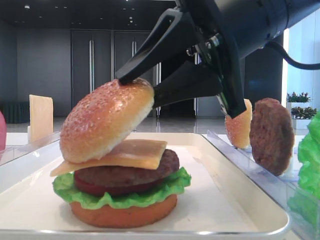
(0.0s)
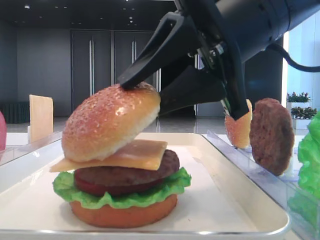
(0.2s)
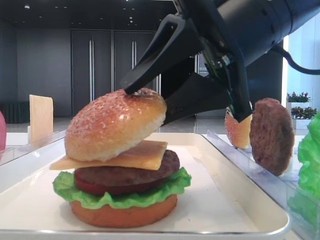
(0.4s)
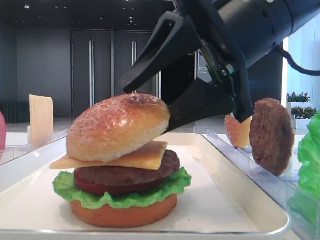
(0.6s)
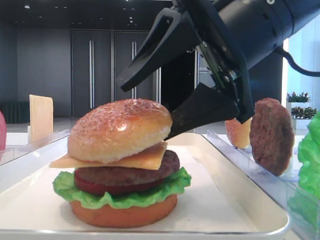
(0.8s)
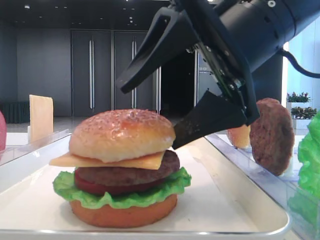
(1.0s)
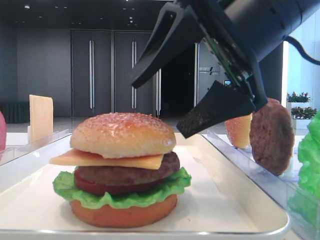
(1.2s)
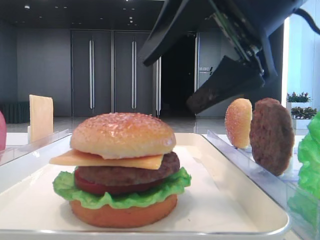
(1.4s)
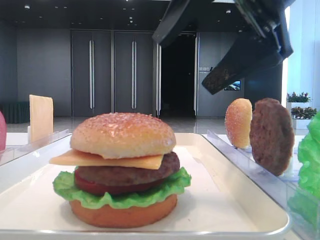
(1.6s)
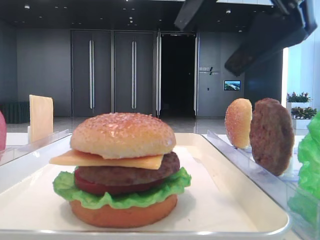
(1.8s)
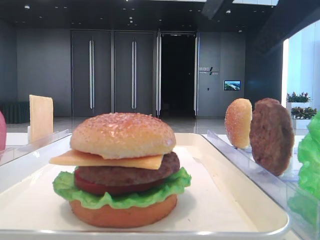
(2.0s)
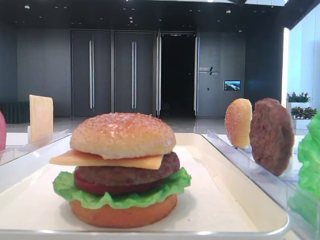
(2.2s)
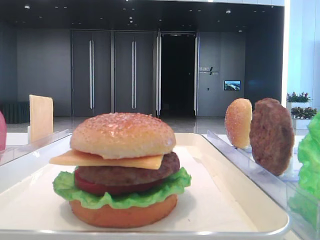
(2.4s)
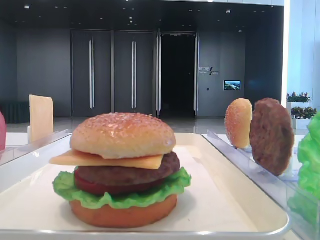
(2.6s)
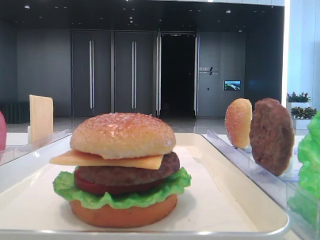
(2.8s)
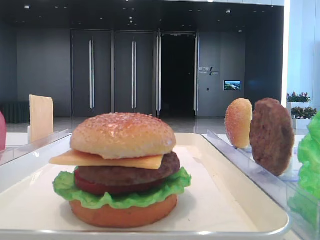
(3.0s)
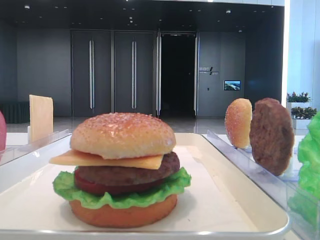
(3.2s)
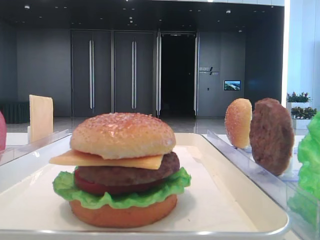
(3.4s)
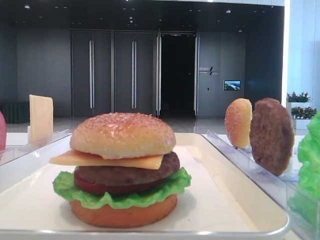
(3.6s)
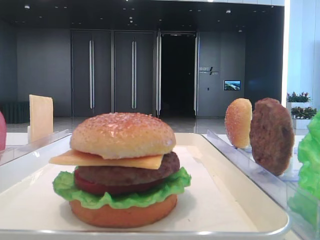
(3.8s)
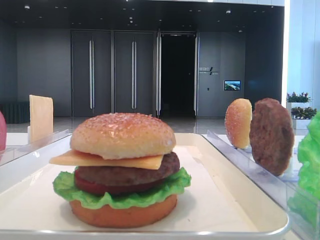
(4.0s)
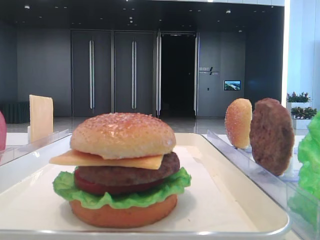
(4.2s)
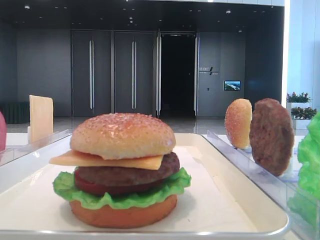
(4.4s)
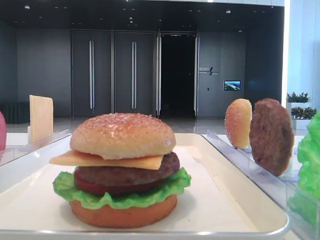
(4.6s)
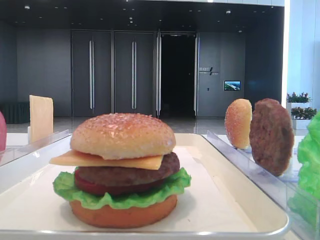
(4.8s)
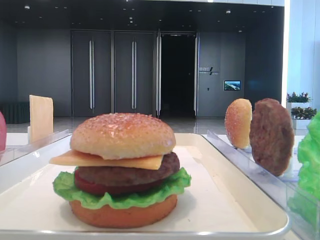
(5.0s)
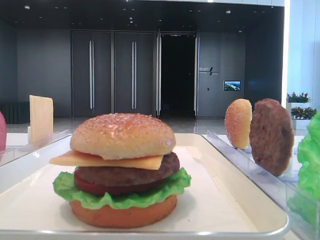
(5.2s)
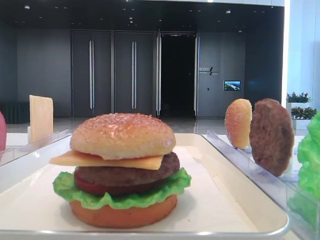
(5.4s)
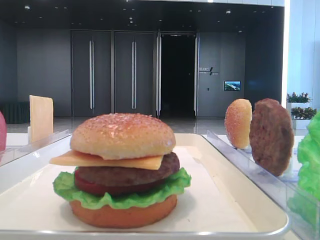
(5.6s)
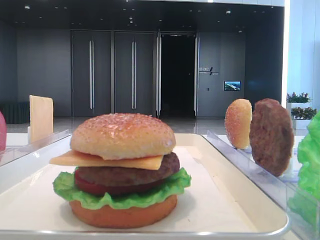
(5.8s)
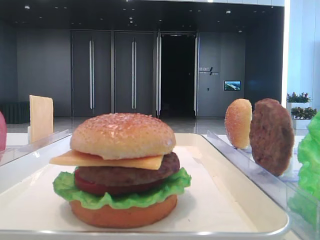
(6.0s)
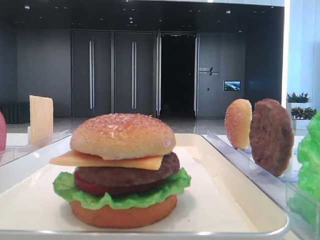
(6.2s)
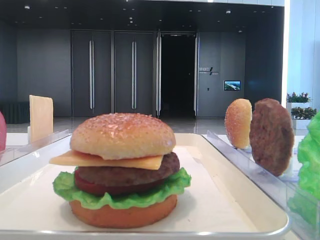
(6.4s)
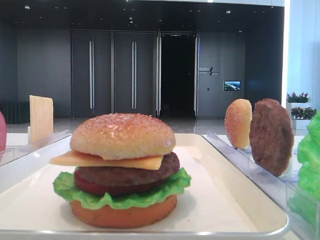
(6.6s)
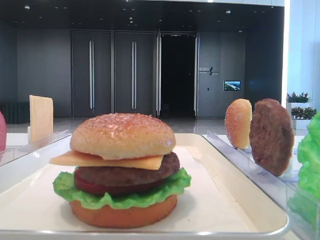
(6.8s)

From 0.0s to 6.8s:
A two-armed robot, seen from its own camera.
From 0.0s to 1.4s: The right gripper opens.
From 1.4s to 2.8s: The right gripper shifts about 20 cm upward and to the right.

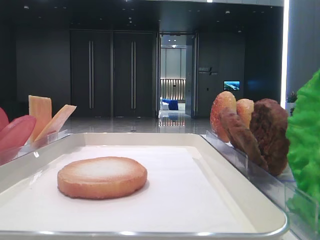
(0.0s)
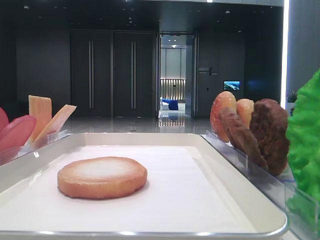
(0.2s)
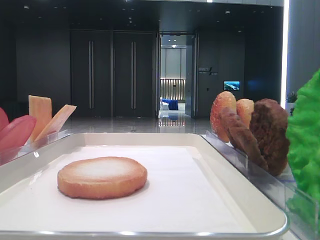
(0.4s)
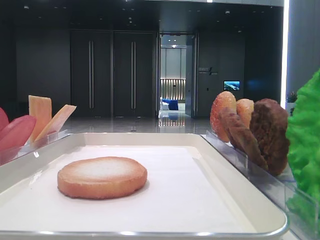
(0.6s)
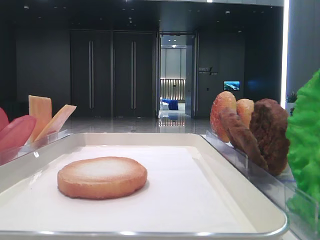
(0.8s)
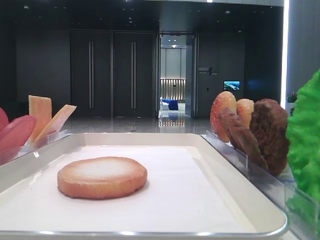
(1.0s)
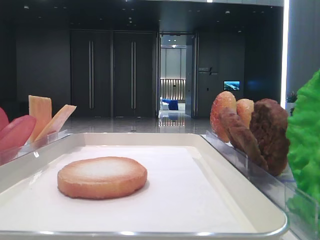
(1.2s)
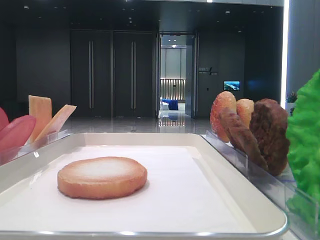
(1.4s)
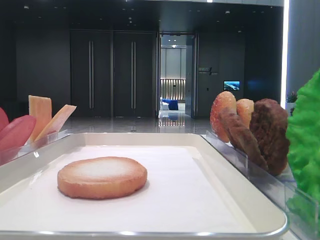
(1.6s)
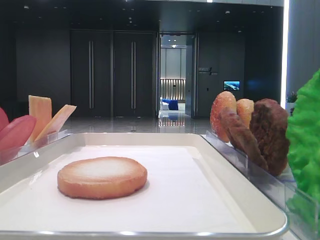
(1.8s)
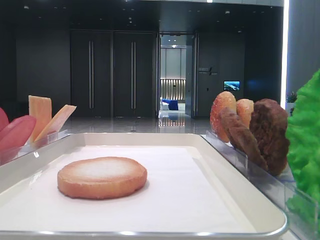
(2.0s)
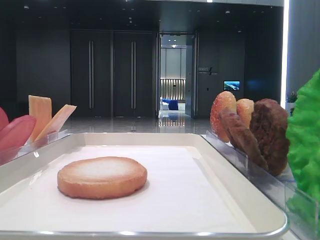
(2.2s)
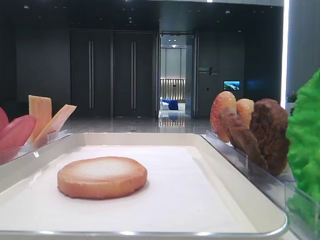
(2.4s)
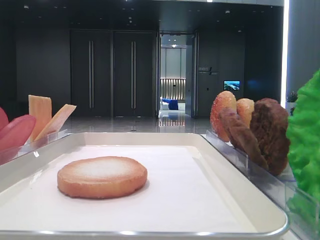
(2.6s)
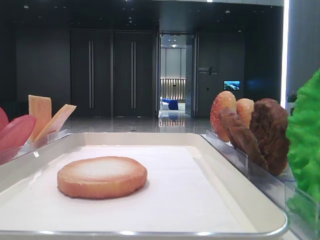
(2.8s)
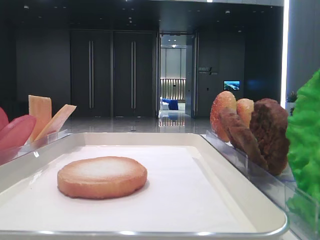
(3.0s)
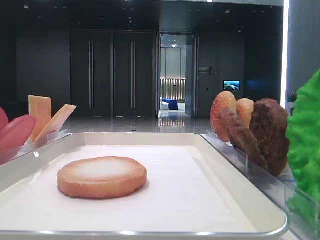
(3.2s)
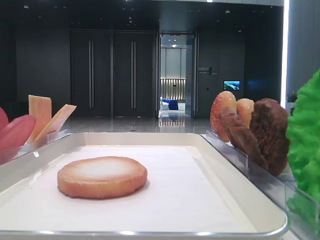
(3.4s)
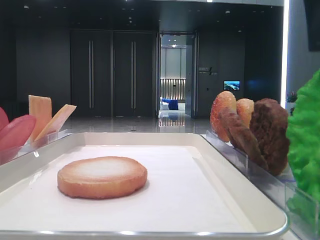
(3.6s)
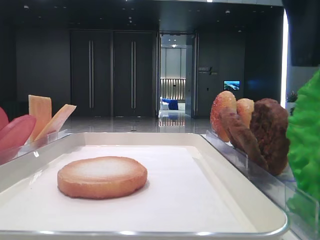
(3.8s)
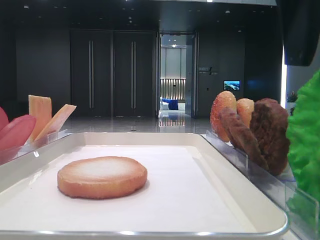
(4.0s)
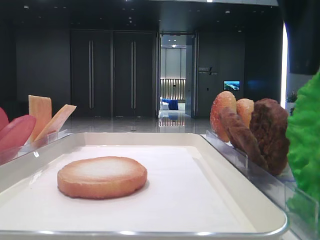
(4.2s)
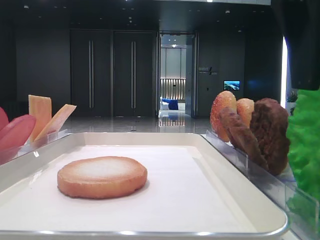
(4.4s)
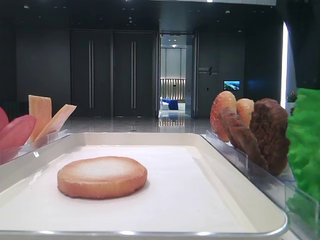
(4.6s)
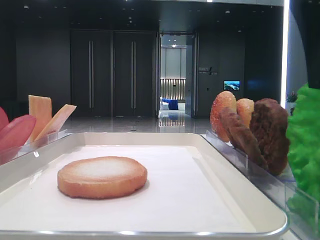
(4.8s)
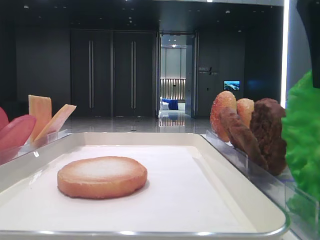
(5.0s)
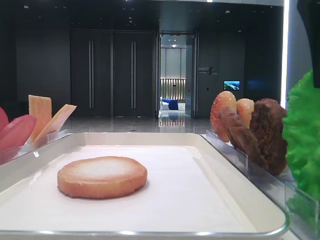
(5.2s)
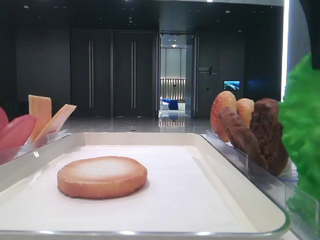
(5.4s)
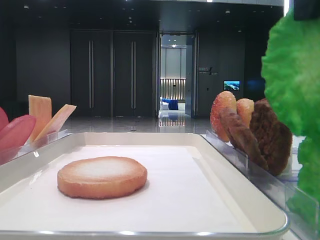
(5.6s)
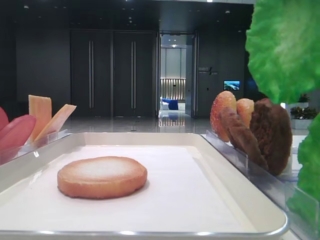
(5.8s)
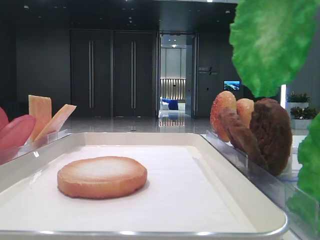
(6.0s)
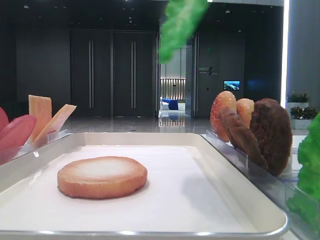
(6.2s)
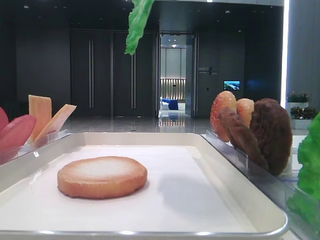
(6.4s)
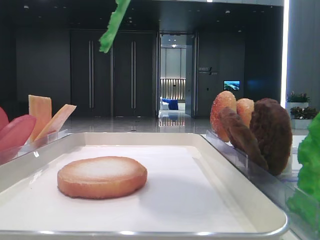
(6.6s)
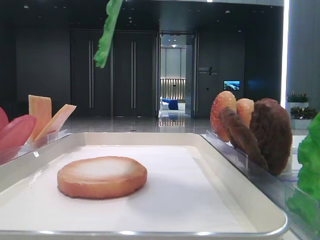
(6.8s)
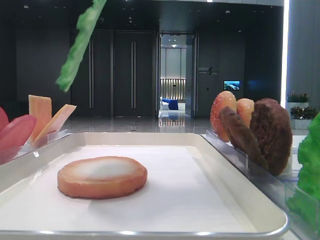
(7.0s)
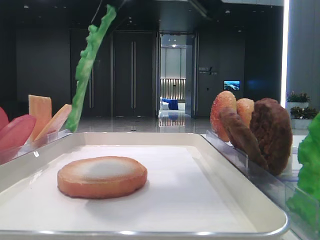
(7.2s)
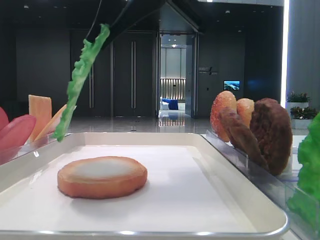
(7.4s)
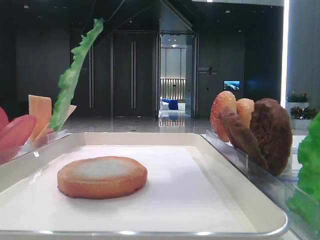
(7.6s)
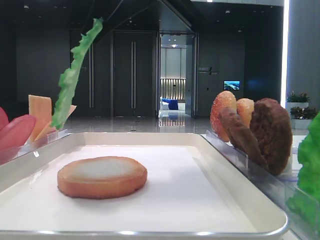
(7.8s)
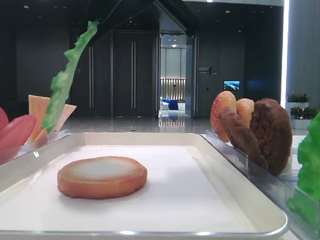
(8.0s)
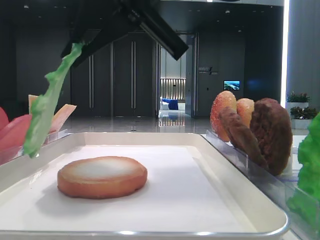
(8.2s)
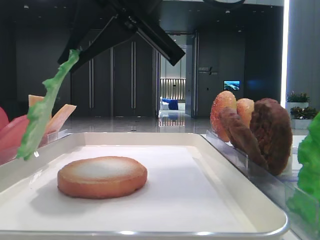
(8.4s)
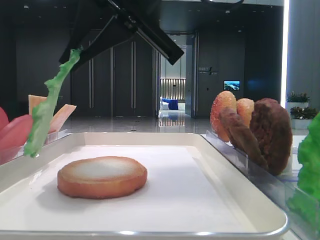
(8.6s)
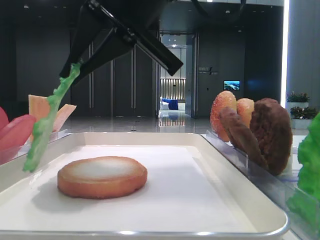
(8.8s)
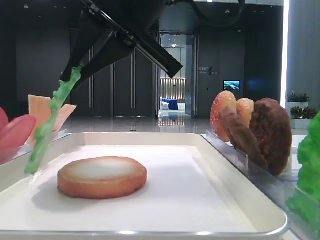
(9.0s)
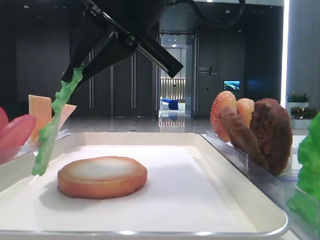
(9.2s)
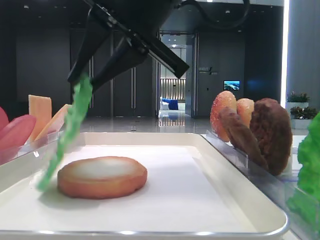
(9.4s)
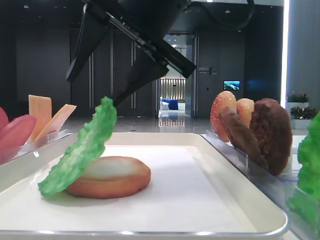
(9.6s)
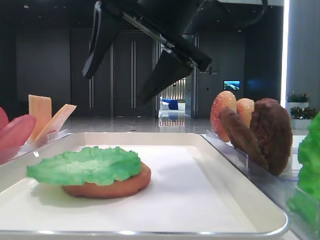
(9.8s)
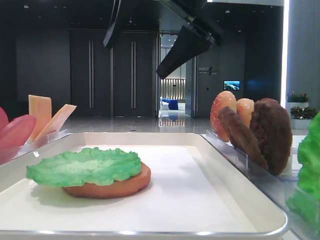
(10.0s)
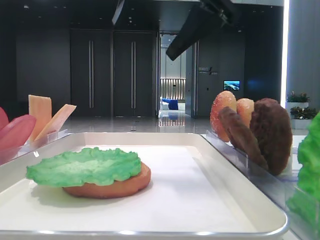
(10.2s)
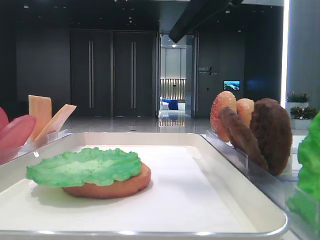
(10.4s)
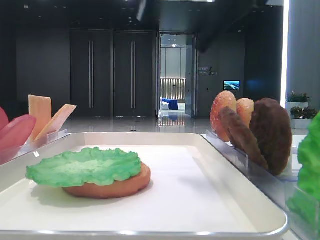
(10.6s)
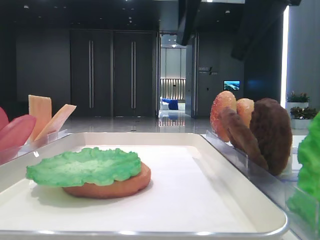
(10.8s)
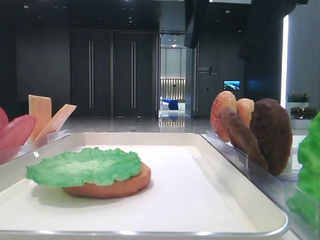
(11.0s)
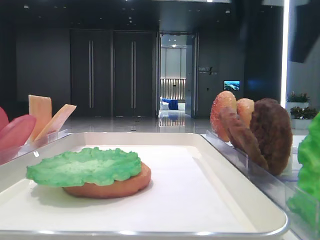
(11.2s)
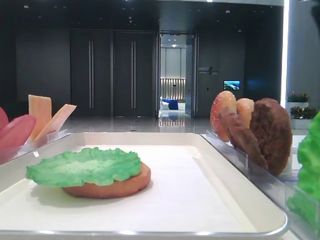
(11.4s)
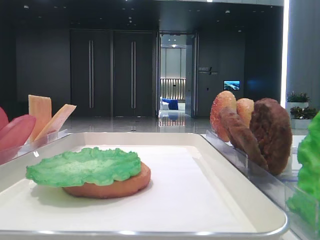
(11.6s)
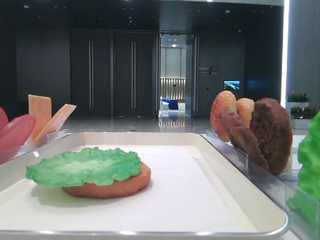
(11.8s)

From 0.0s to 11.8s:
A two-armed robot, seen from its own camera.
Step, from 0.0s to 4.8s: Grab the lettuce leaf with the right hand.
Step, from 5.2s to 9.6s: Place the lettuce leaf on the bottom bread with the right hand.
From 3.0s to 4.4s: The right gripper travels to the left and downward by approximately 15 cm.
From 4.4s to 6.0s: The right gripper shifts about 10 cm upward, and closes up.
From 6.0s to 7.4s: The right gripper travels to the left and downward by roughly 15 cm.
From 7.4s to 8.8s: The grippers move only a little.
From 8.8s to 10.4s: The right gripper goes about 10 cm upward and to the right, and opens up.
From 10.4s to 11.8s: The right gripper moves to the right, about 25 cm.

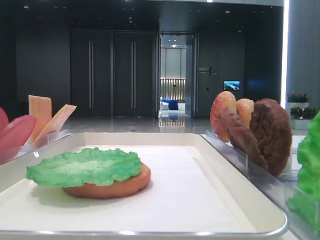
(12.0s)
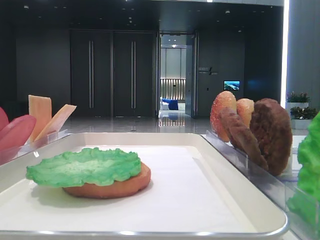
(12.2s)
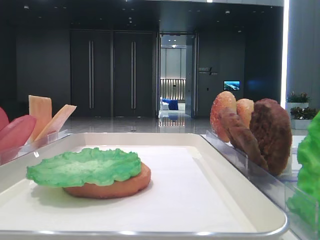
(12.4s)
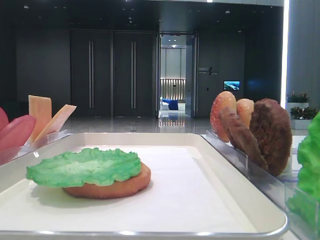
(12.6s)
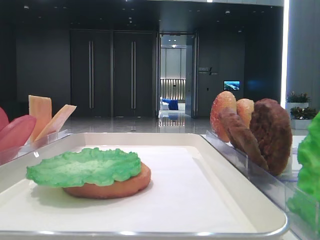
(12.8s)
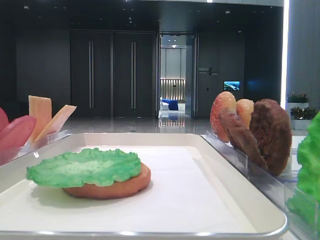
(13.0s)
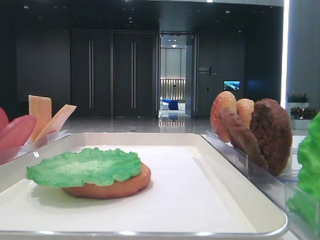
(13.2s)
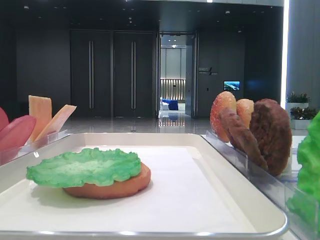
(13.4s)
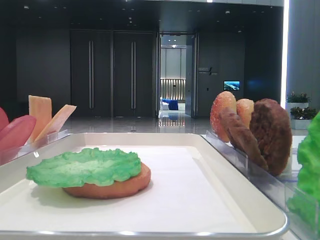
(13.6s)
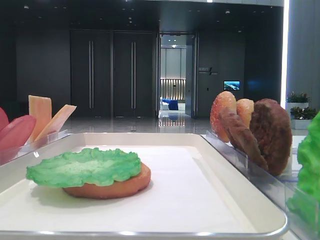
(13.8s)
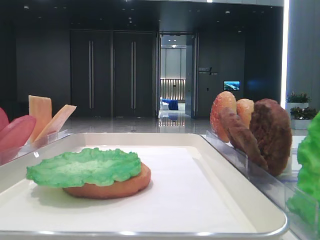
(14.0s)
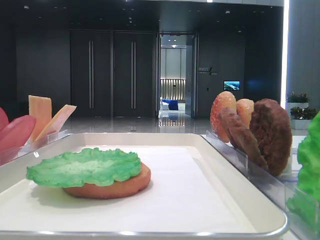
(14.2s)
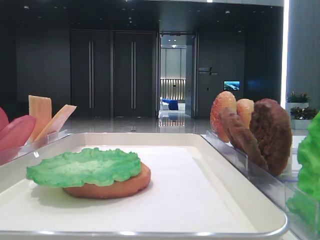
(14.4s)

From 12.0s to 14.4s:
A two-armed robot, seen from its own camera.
From 13.2s to 14.4s: Both grippers stay put.

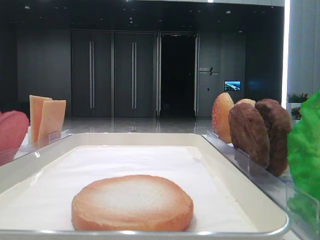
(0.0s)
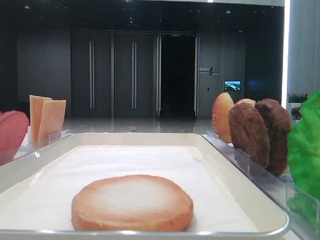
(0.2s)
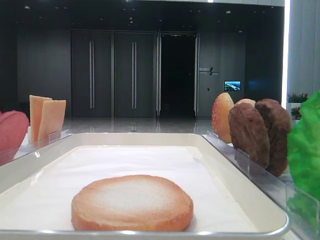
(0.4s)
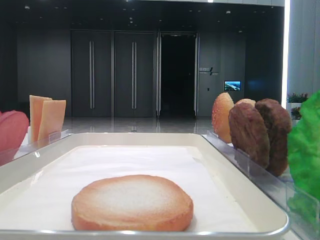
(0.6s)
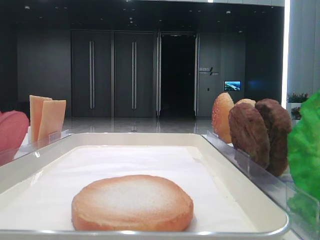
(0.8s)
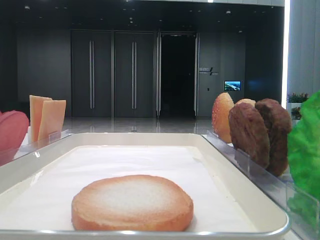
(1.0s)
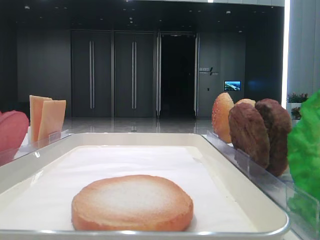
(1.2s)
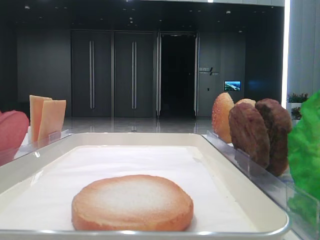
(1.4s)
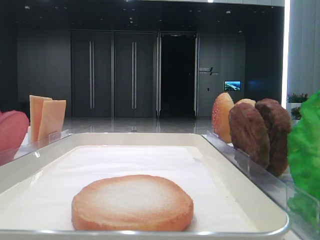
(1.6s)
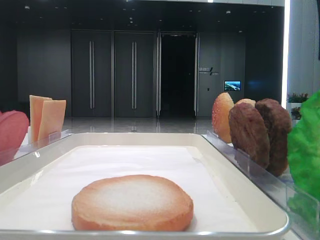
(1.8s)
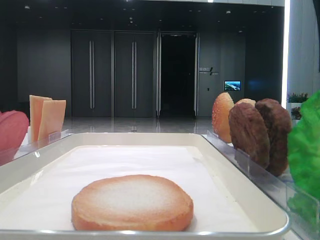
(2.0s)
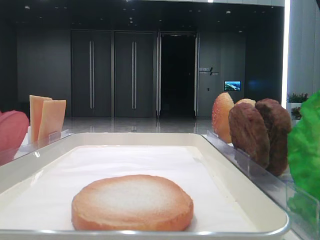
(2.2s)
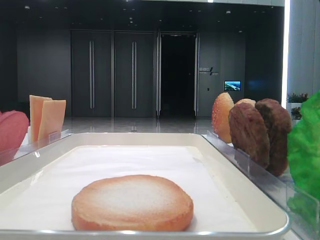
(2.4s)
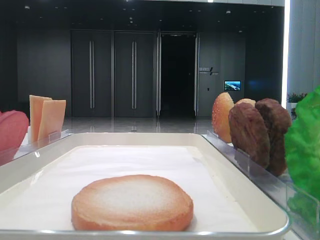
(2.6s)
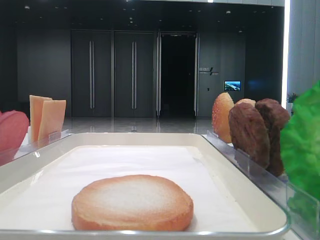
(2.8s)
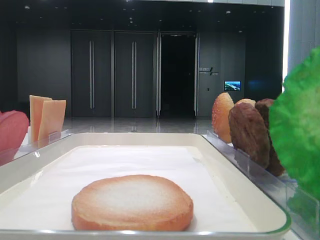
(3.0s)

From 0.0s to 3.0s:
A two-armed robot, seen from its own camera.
From 1.6s to 3.0s: The right gripper closes.
